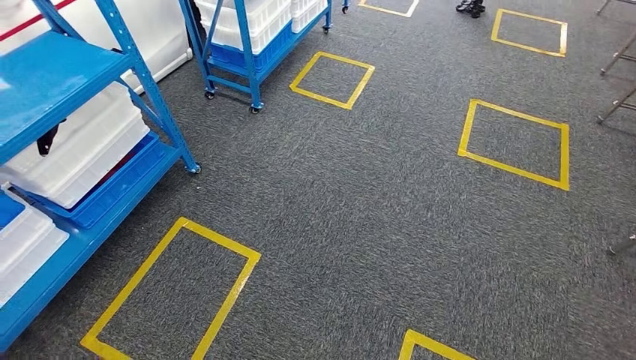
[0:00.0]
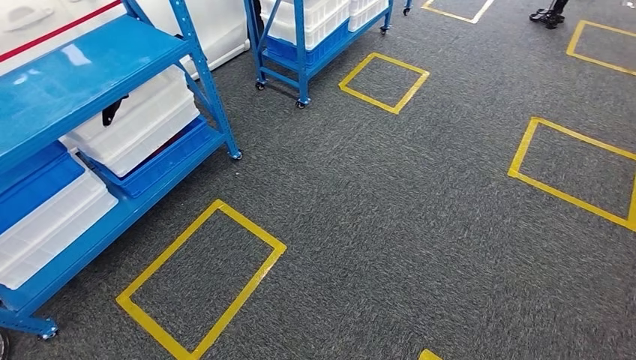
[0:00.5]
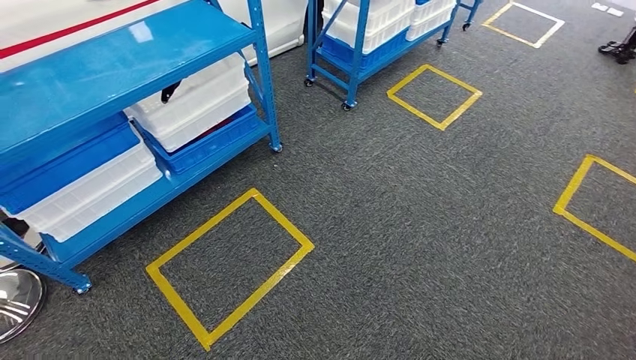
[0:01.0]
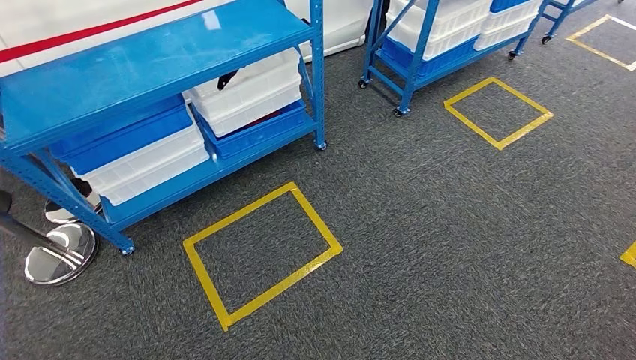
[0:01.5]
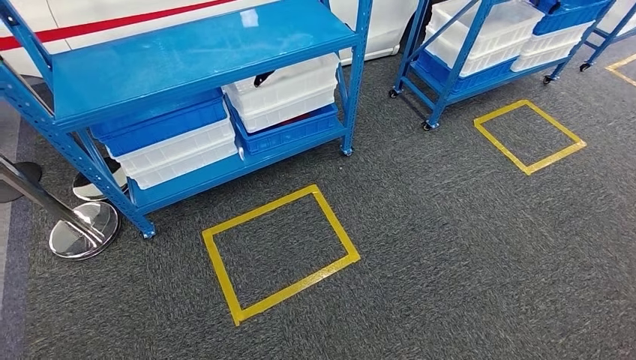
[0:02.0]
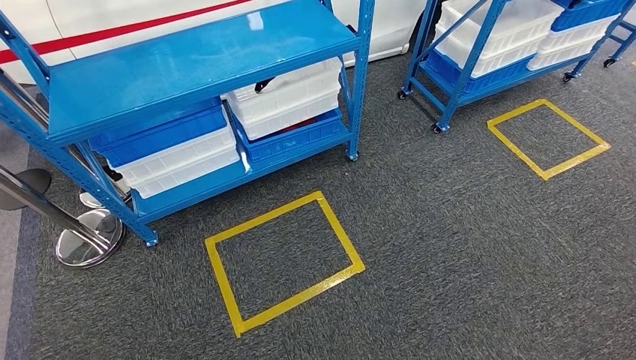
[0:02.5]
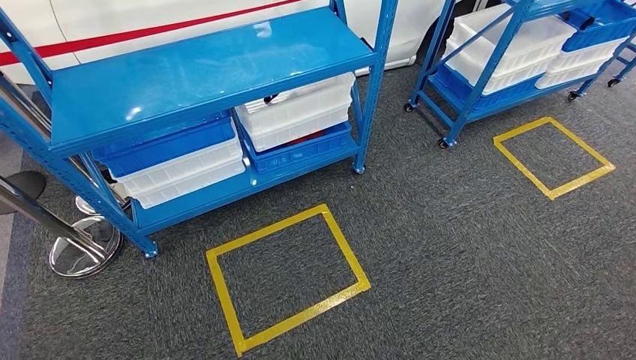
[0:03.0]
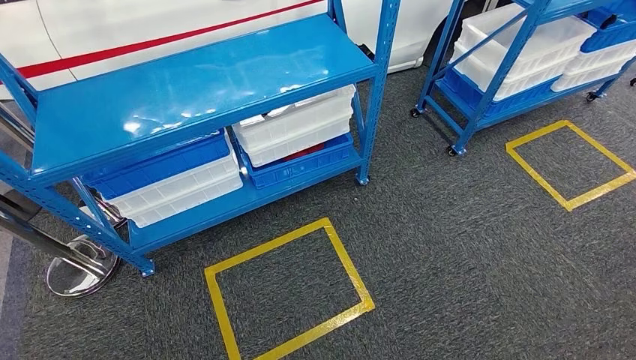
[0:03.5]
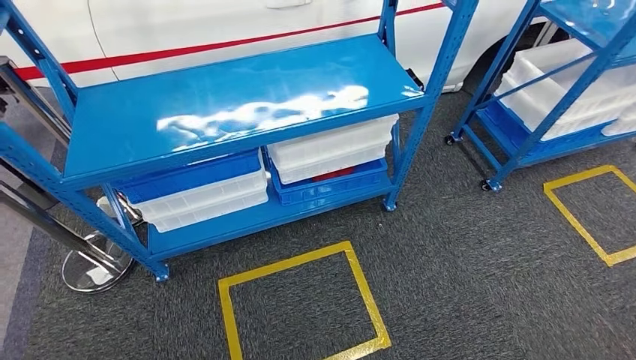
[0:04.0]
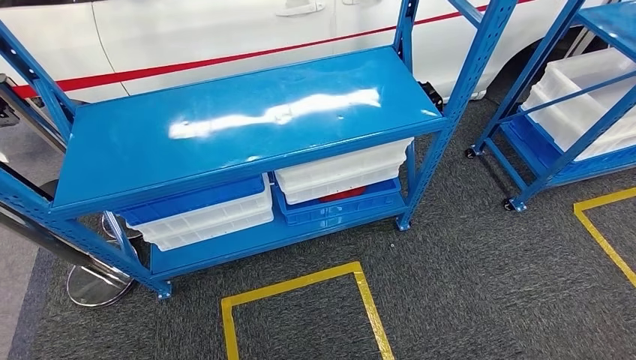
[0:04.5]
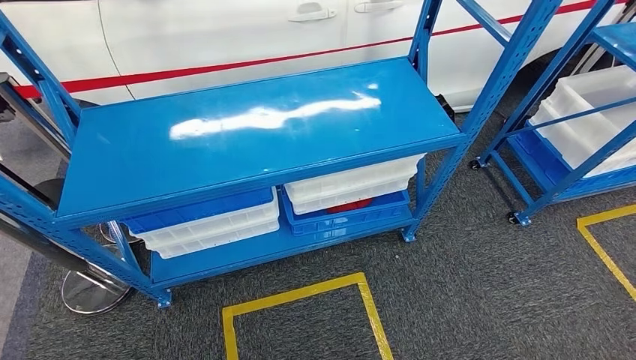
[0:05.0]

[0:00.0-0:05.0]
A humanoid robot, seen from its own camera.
Step, 0:00.0 to 0:05.0: Return to the initial position at the shelf.
